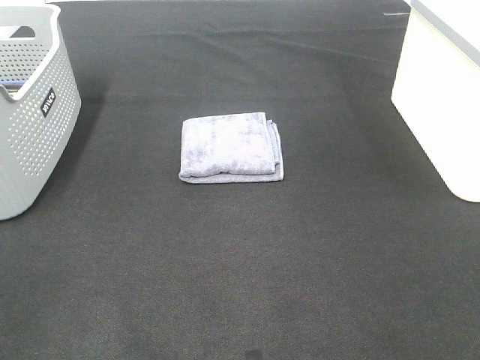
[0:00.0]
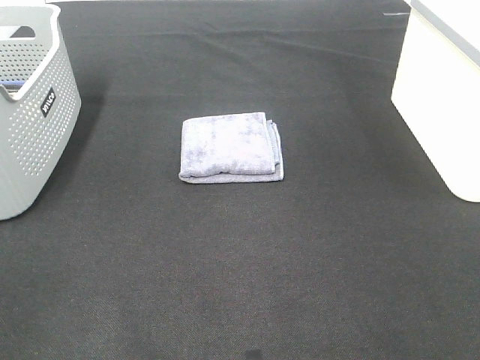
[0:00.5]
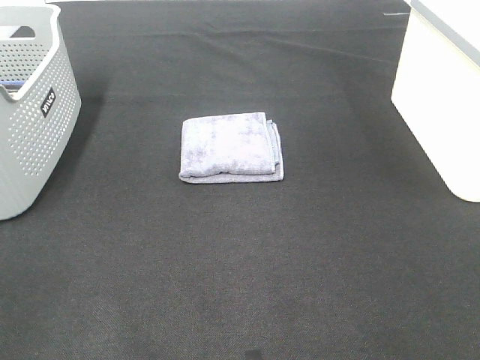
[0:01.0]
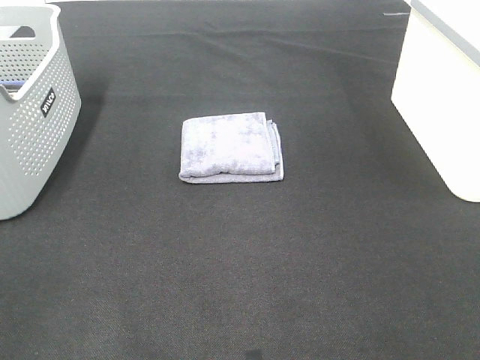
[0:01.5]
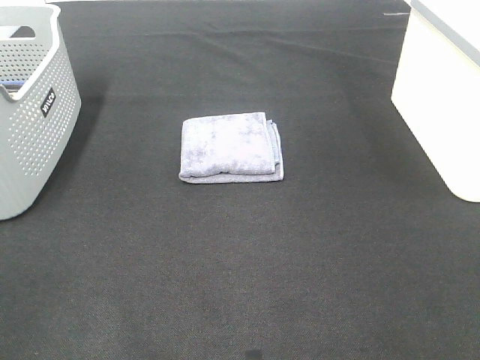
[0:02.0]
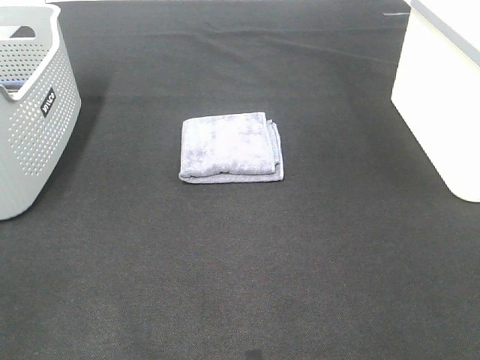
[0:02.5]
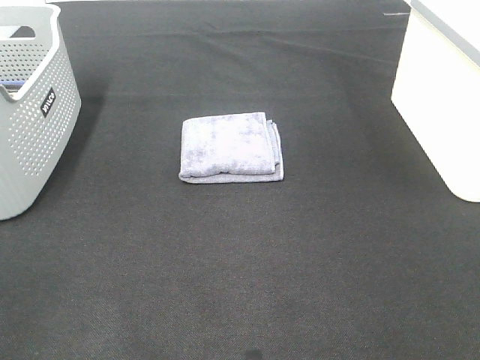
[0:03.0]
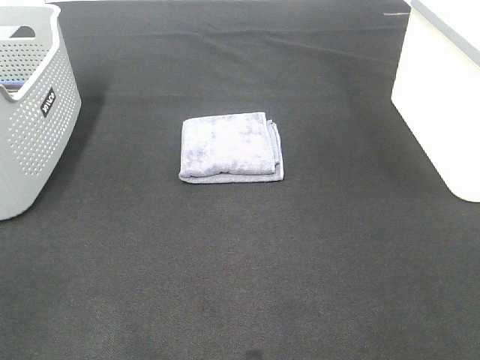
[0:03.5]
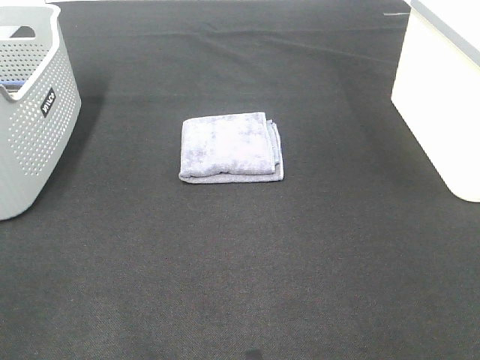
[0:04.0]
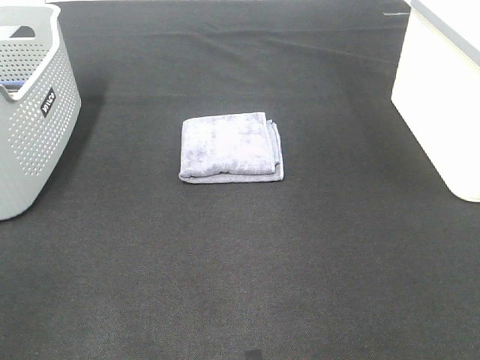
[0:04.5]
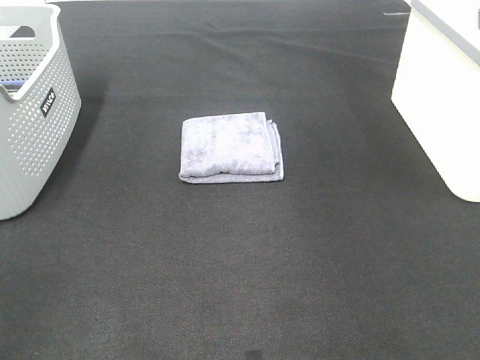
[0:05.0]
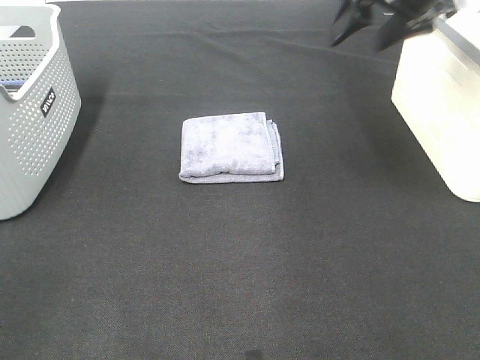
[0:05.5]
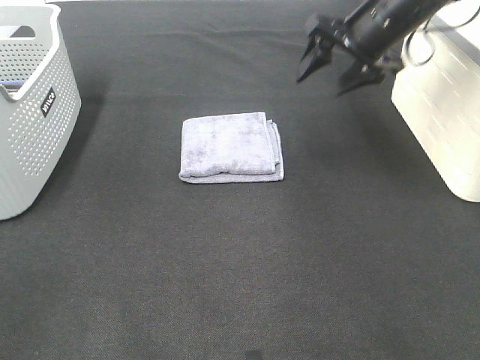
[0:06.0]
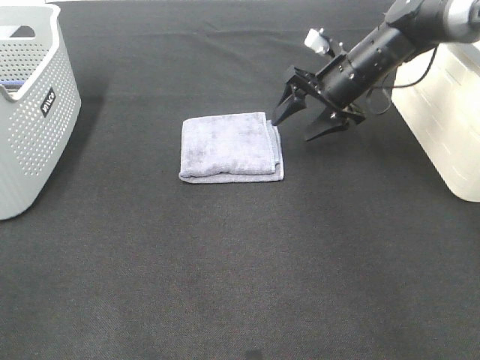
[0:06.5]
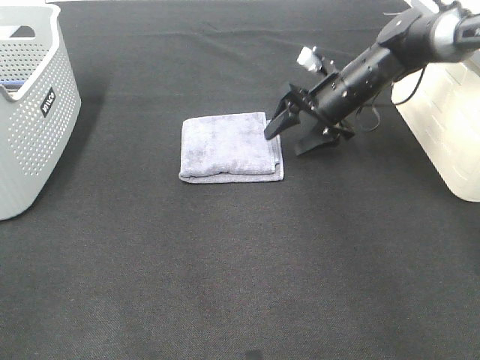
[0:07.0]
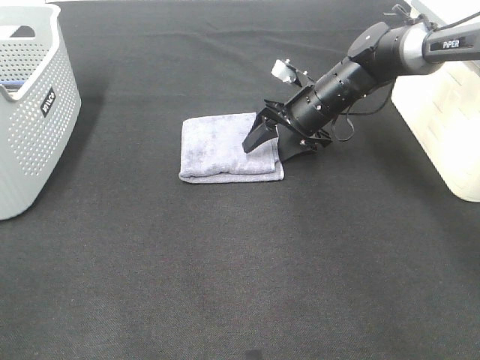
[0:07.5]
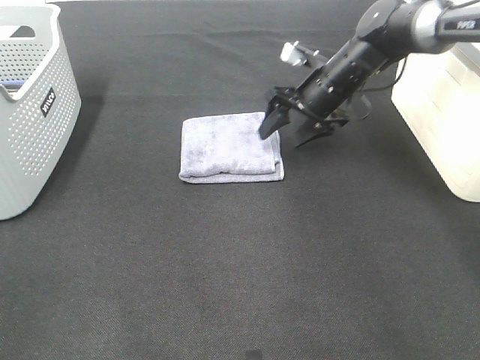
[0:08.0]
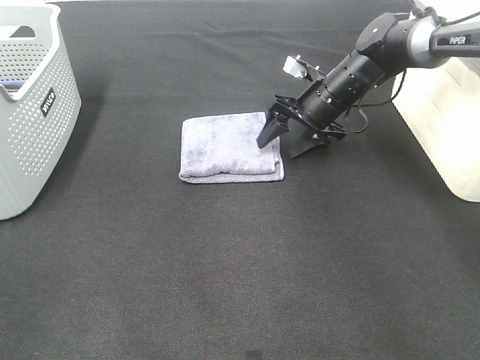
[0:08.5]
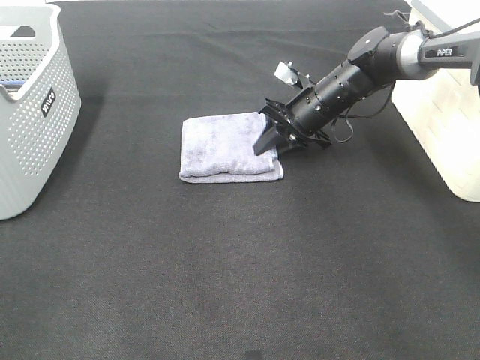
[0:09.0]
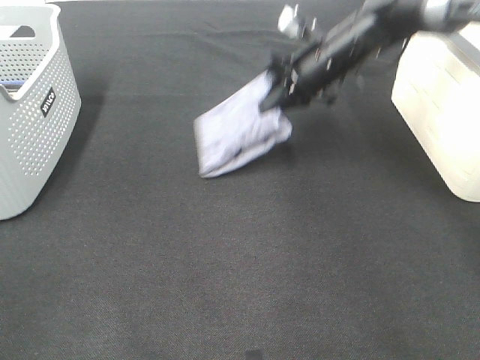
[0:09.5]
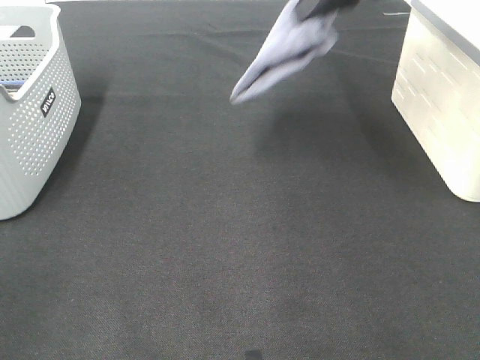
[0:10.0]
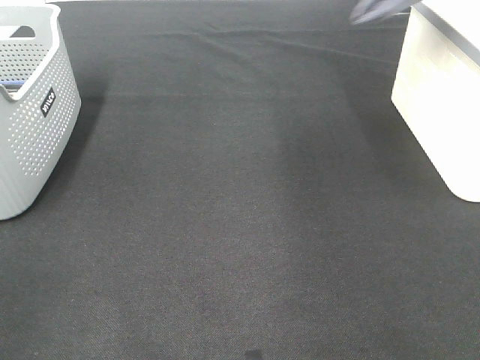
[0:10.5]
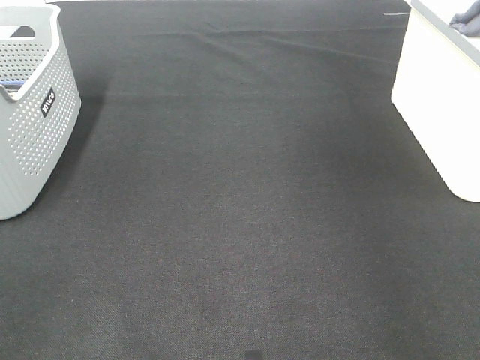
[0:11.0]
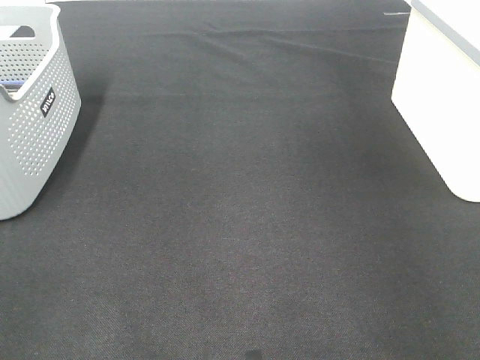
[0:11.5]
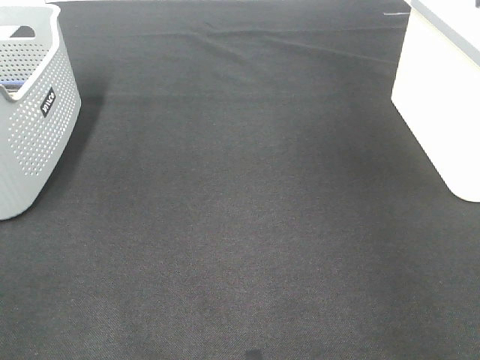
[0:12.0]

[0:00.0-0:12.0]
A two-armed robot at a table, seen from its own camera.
Step, 0:00.0 to 0:09.0: Right hand: grab the folded grey towel.
Step, 0:09.5 to 0:11.5: Right hand: place the grey towel in right basket.
0:00.0 to 0:02.0: The two grippers keep their place.
0:04.0 to 0:06.0: The right gripper heads forward, covering roughly 40 cm.
0:06.0 to 0:08.0: The right gripper moves downward, roughly 10 cm.
0:08.0 to 0:10.0: The right gripper heads upward, covering about 20 cm, and closes its fingers.
0:10.0 to 0:12.0: The right gripper heads to the right, covering roughly 20 cm, and opens up.

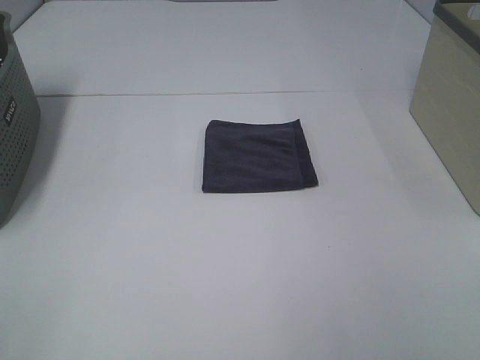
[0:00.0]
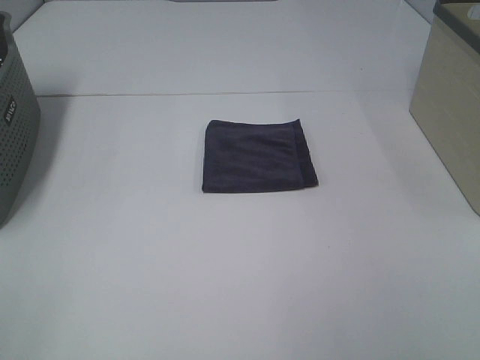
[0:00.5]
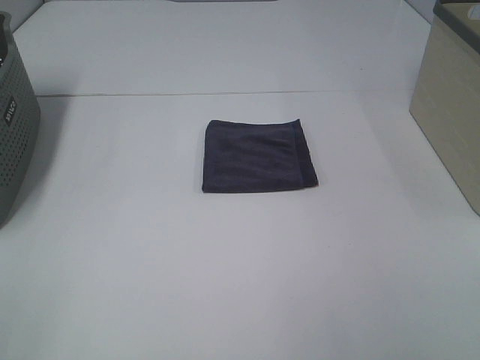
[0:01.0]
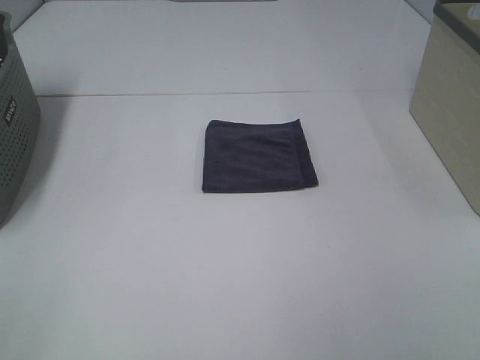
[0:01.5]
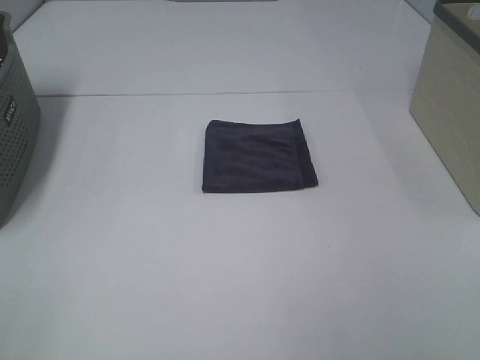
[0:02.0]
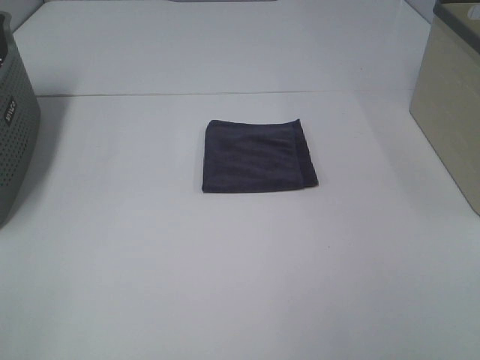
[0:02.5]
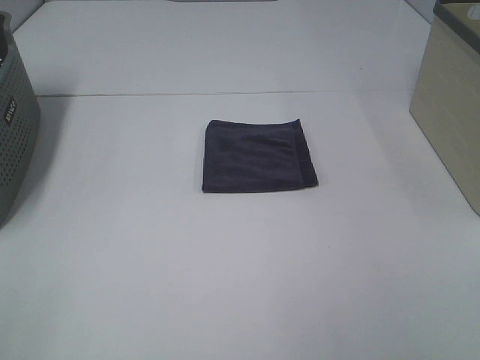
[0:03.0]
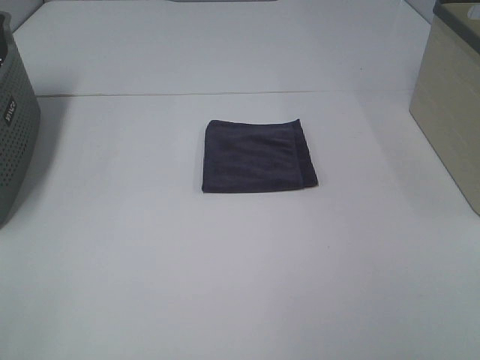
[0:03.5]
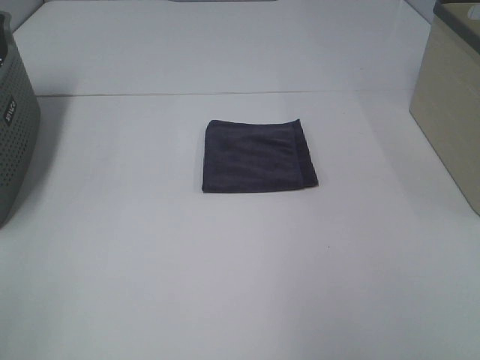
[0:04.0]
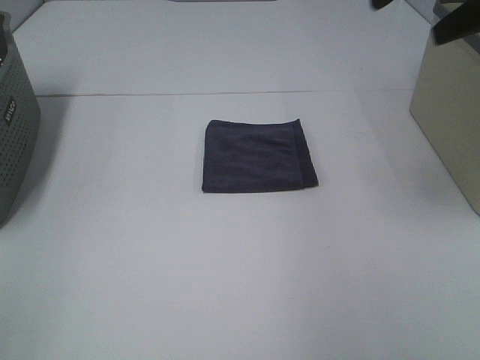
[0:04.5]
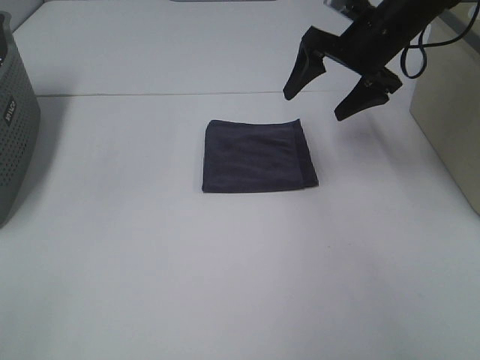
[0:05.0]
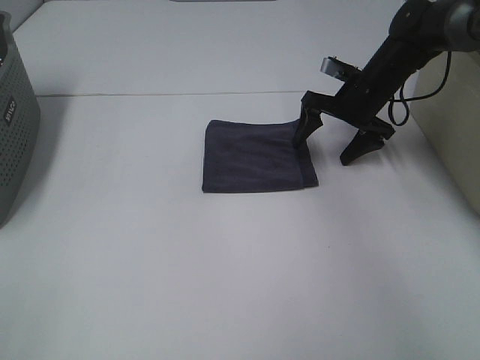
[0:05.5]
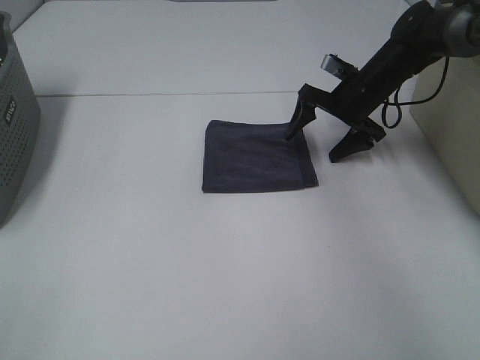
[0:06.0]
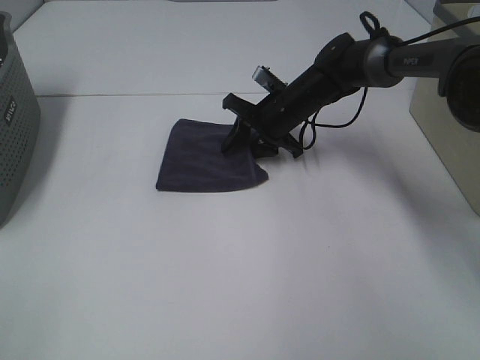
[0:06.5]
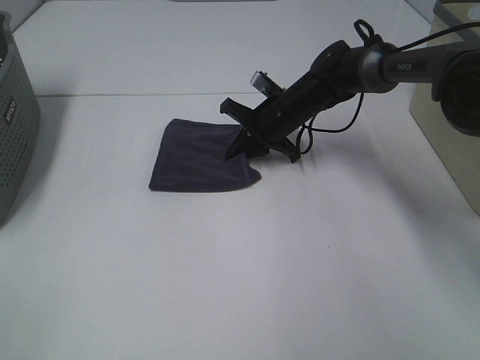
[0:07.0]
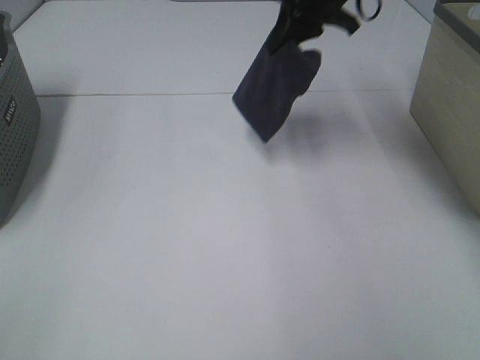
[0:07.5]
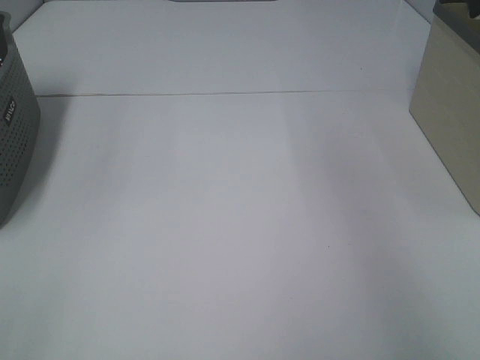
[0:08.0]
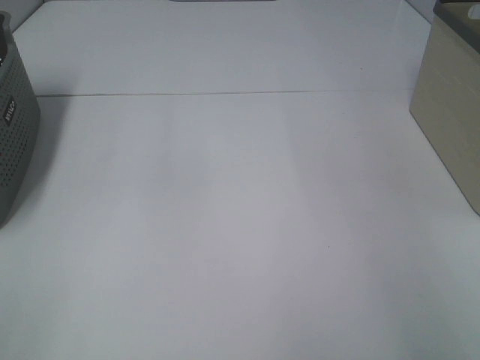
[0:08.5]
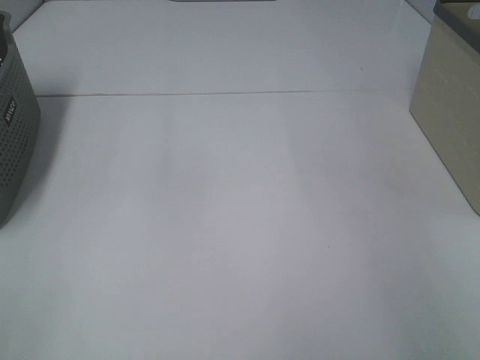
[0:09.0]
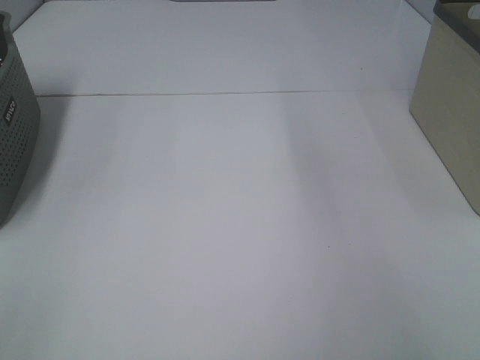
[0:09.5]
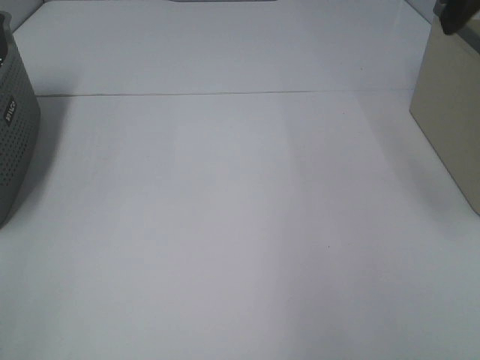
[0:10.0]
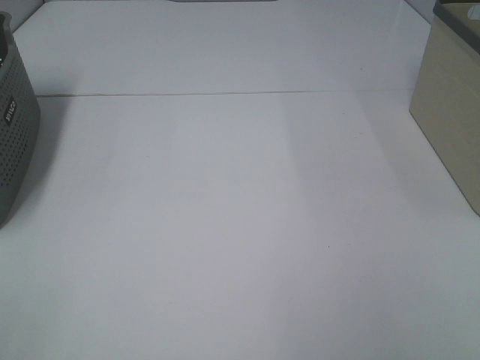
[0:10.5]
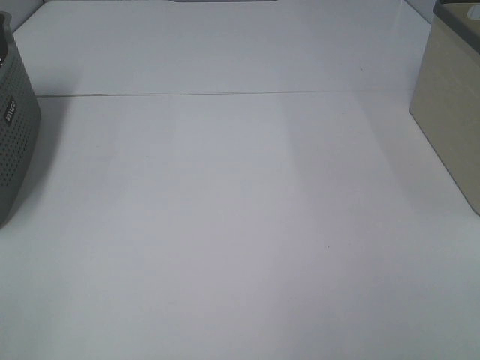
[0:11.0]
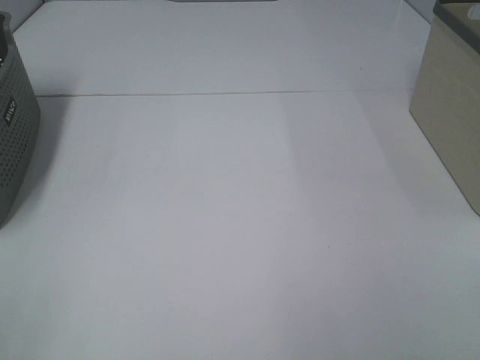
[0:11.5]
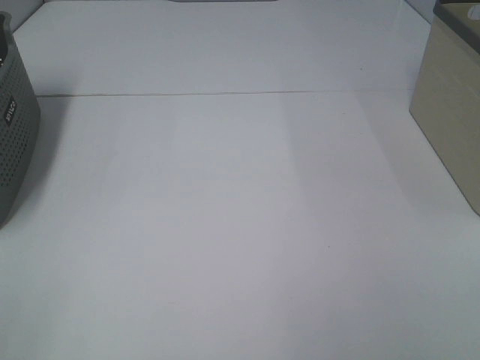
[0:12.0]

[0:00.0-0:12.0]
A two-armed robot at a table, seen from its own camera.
Step, 0:00.0 to 0:06.5: Right hand: grab the folded grey towel.
Step, 0:07.0 to 0:08.5: Right hand: place the grey towel in right basket.
0:00.0 to 0:02.0: The two grippers keep their place.
0:04.0 to 0:06.0: The right gripper moves forward and downward, about 50 cm.
0:06.0 to 0:08.0: The right gripper heads upward and to the right, covering approximately 40 cm, and closes up.

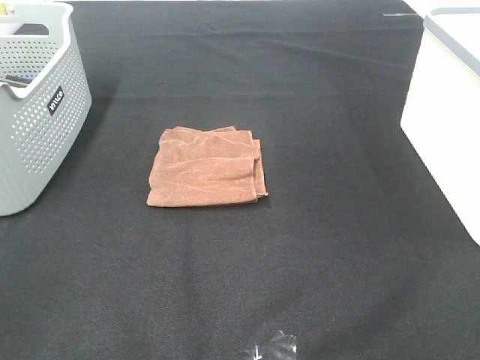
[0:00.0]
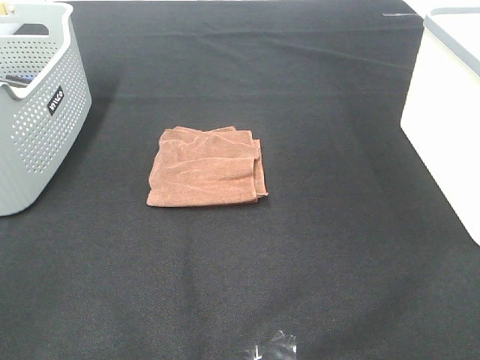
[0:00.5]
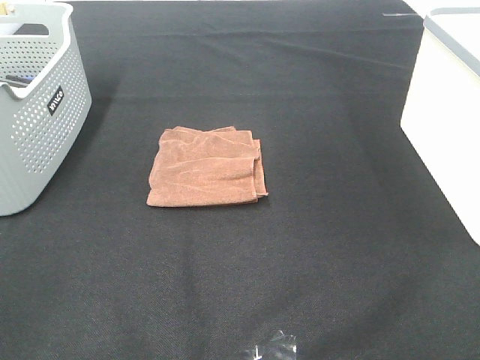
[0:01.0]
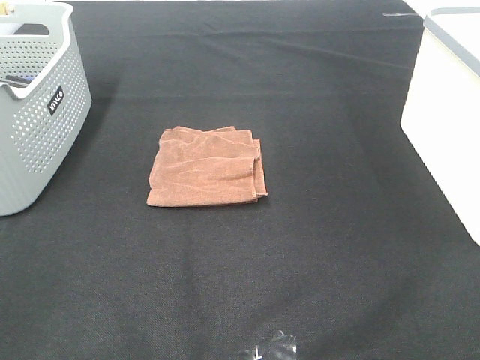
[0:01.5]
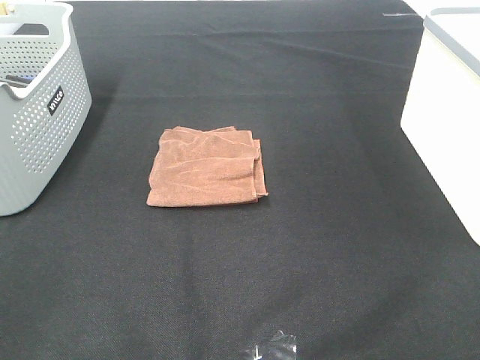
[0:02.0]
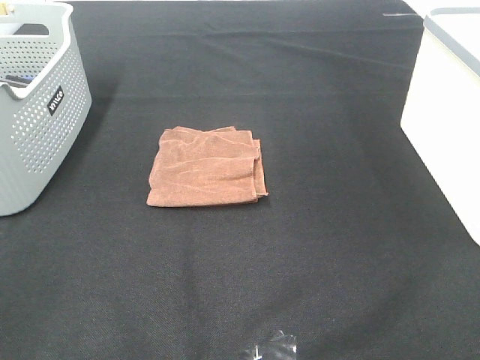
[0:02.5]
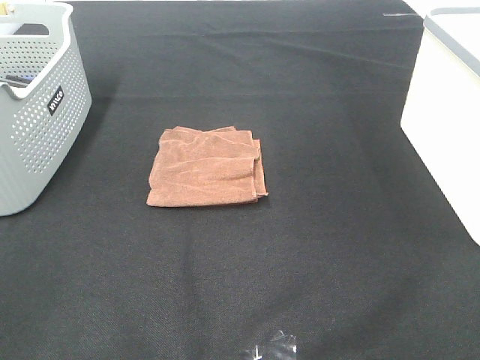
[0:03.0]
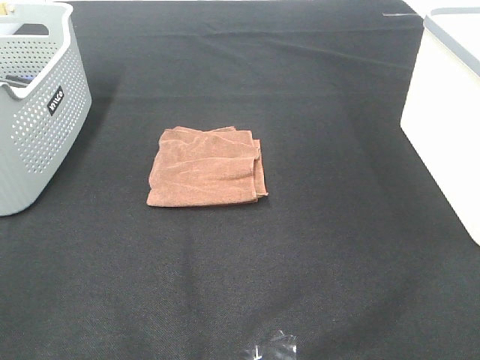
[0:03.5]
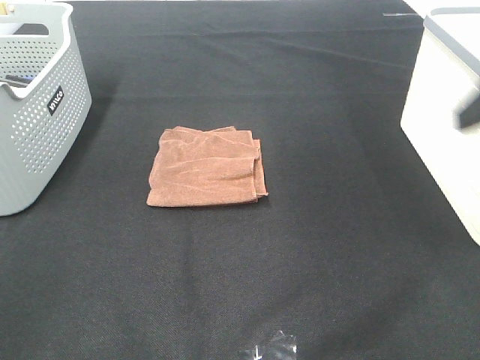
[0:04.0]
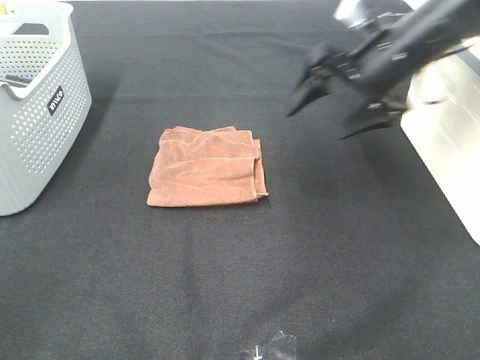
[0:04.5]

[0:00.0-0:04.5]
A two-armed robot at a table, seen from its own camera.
0:00.0 to 0:02.0: The two grippers keep their place.
0:02.0 to 0:04.5: The right gripper shifts about 40 cm forward.
